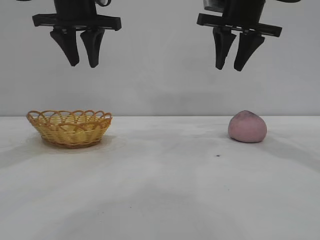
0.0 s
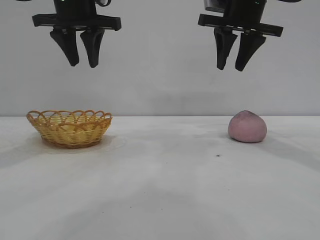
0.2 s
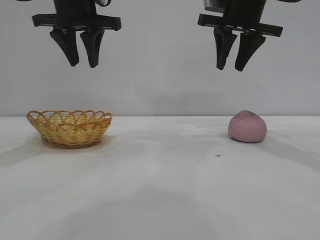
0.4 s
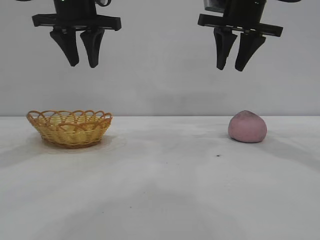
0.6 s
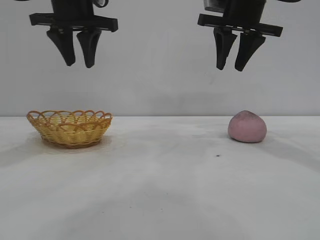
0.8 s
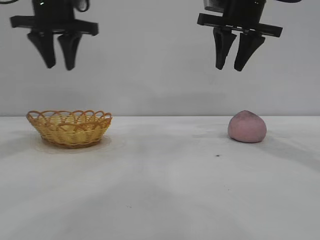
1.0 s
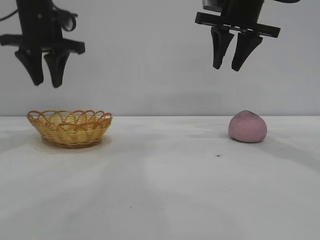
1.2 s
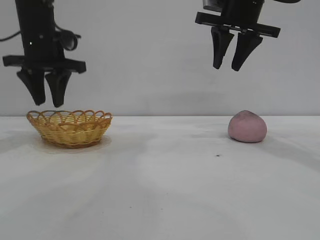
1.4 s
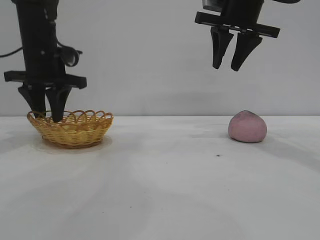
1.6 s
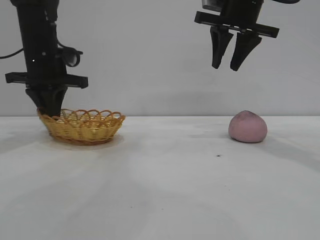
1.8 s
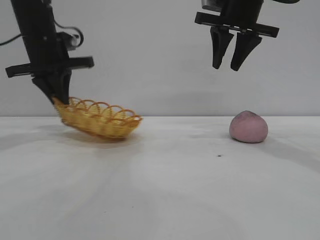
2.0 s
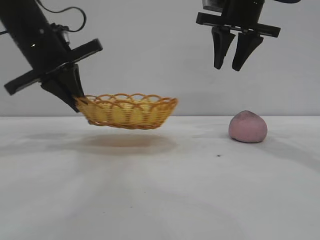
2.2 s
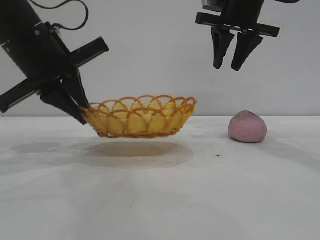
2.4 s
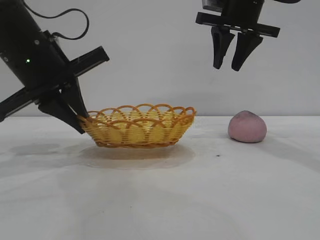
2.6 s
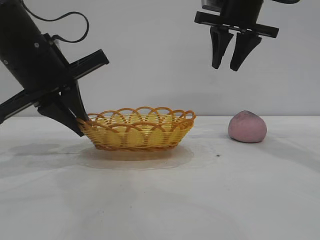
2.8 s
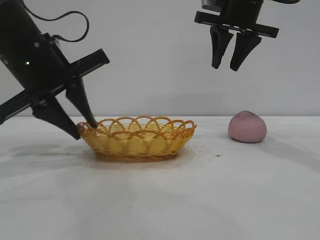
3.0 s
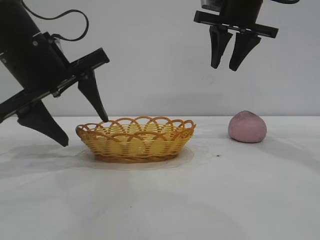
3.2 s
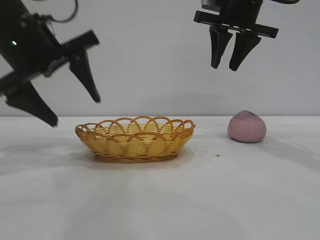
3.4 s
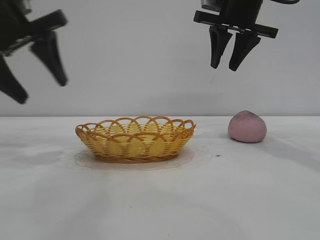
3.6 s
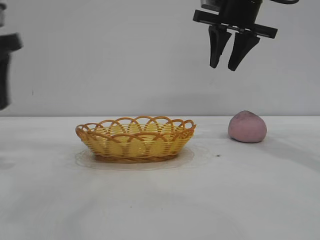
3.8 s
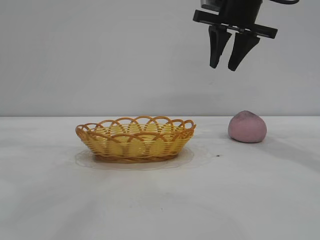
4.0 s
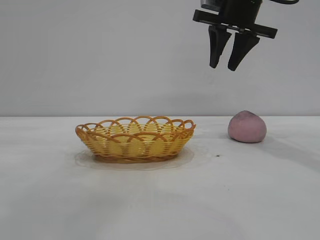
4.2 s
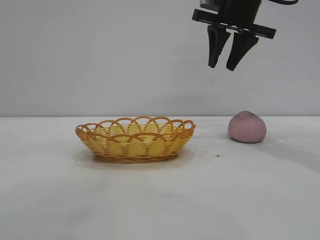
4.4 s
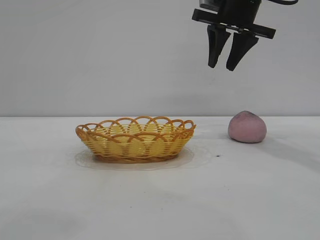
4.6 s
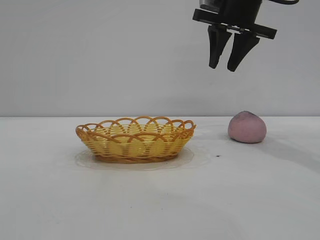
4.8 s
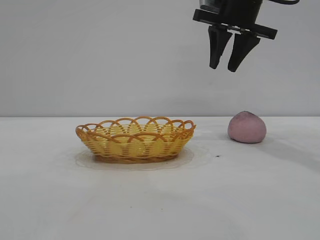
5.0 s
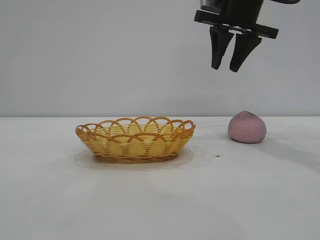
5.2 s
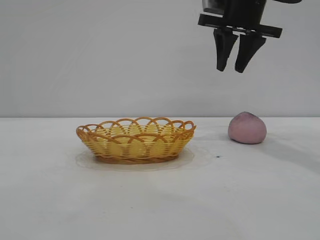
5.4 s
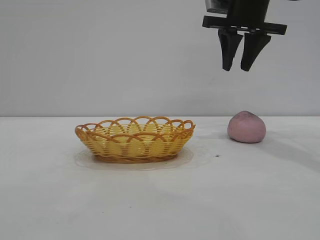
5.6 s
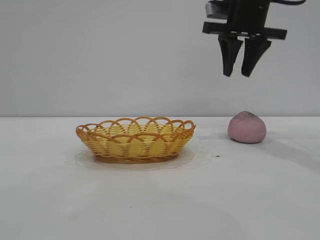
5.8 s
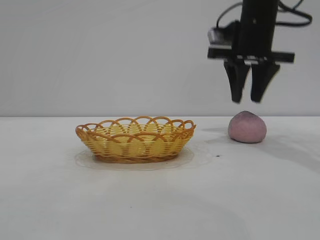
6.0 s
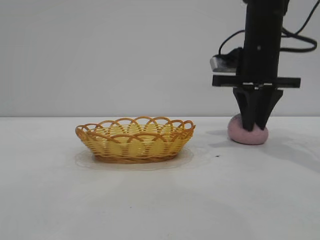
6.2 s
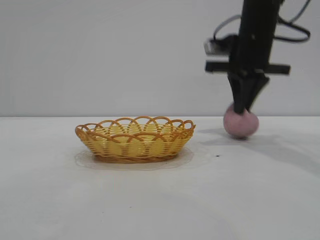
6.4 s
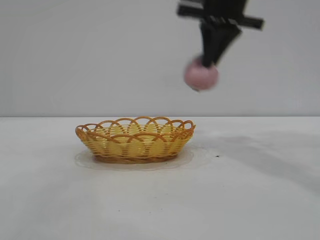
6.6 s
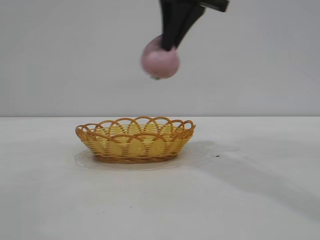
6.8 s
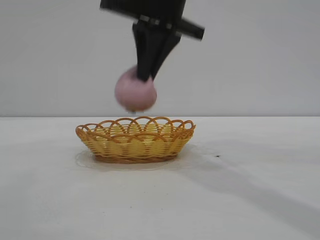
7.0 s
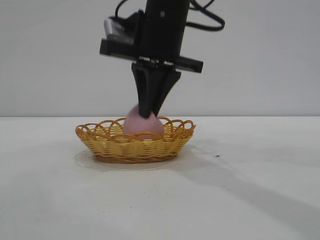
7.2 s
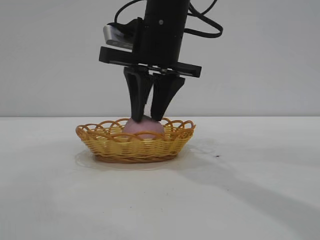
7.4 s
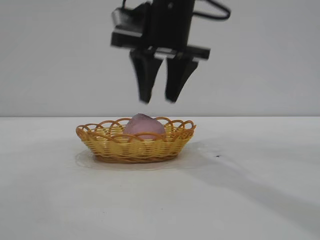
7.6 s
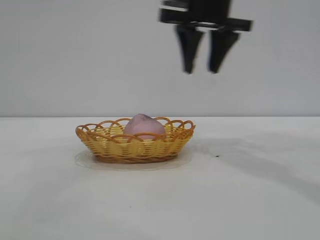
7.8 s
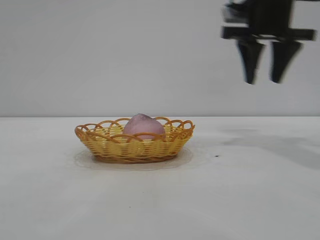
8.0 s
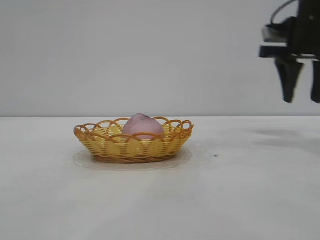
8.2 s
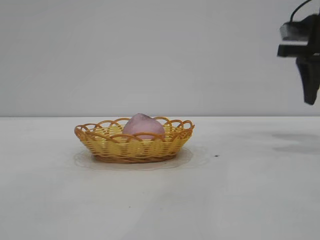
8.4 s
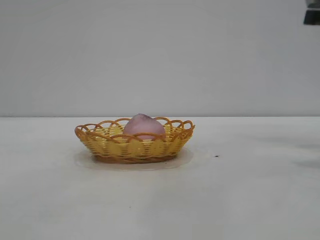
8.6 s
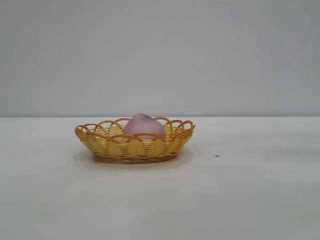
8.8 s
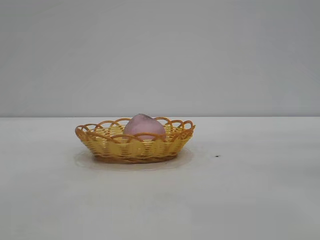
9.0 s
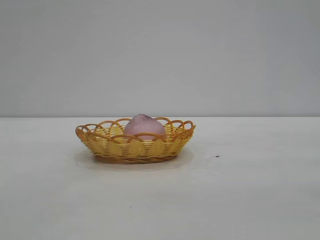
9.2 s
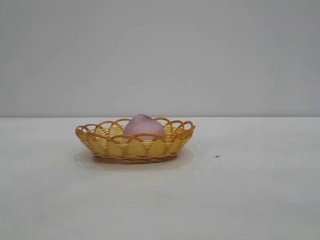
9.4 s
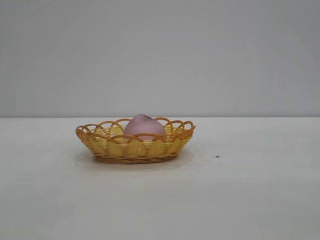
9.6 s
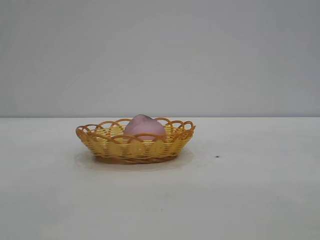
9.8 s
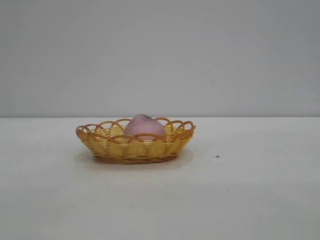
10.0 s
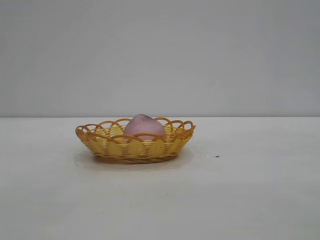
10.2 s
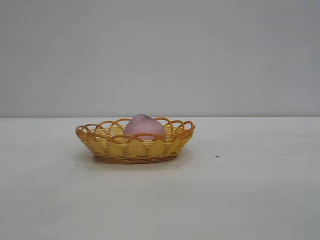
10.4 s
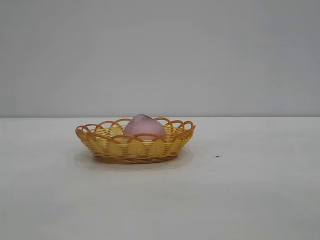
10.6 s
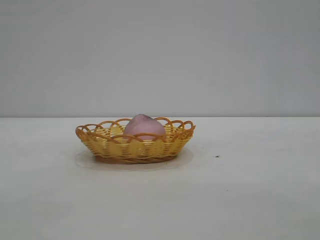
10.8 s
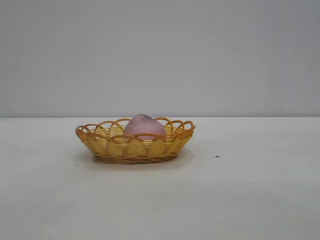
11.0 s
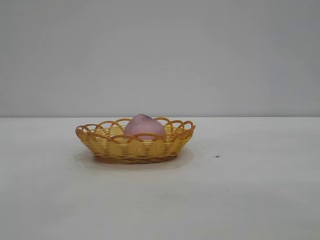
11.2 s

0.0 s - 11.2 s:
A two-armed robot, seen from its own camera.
Task of the whole recording: pick up the peach and put it into the basket.
Step, 0.0 s - 3.4 s: Move the basket to the center of view.
Step, 3.6 s - 6.4 s: Pick up the peach.
Step, 6.6 s - 7.6 s: place the peach into the basket.

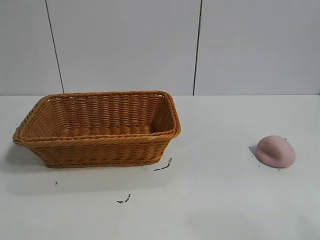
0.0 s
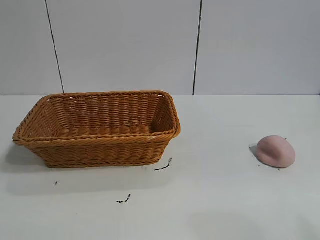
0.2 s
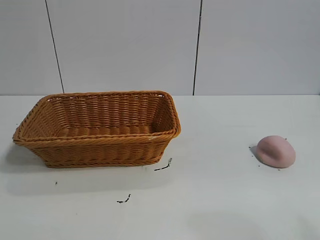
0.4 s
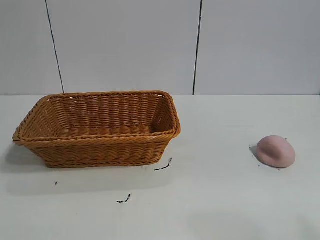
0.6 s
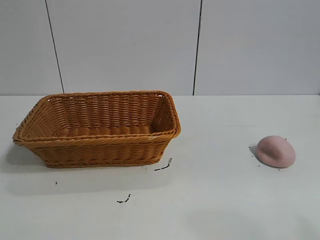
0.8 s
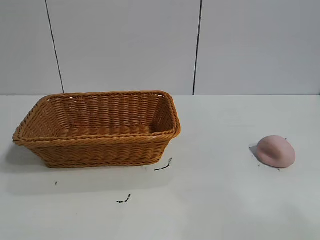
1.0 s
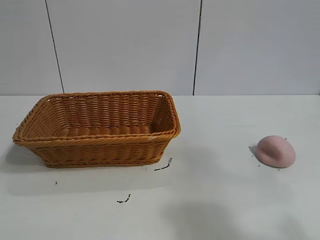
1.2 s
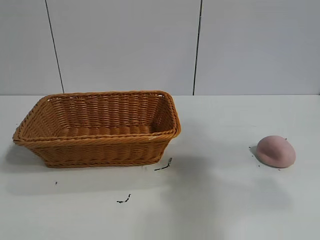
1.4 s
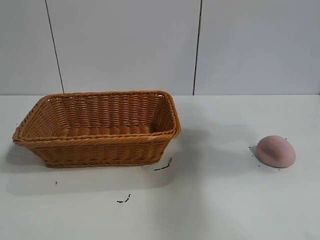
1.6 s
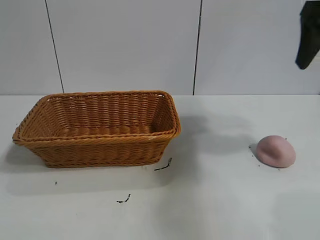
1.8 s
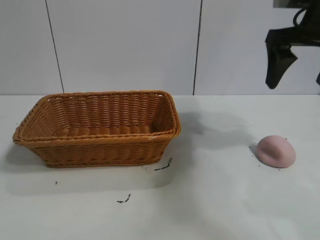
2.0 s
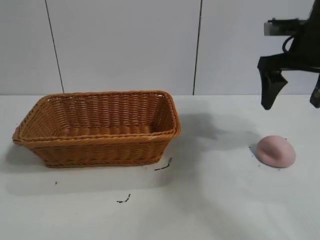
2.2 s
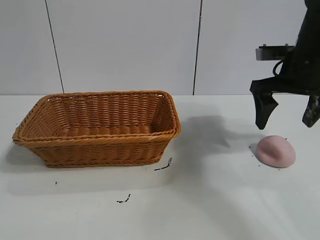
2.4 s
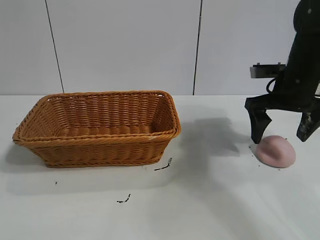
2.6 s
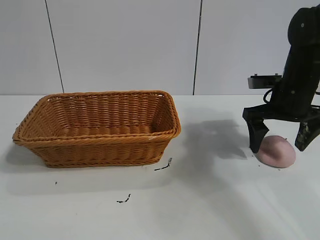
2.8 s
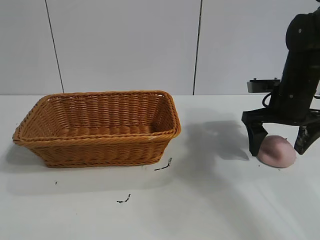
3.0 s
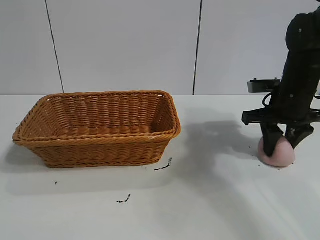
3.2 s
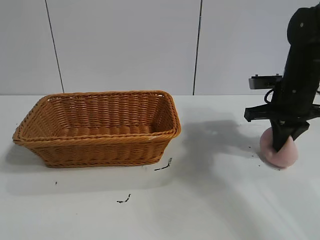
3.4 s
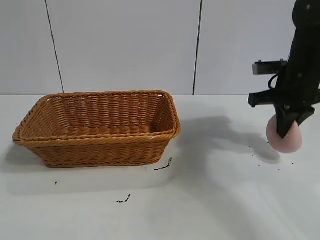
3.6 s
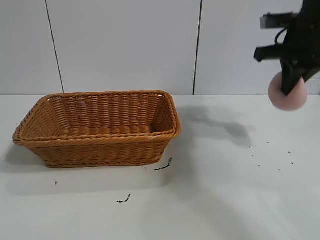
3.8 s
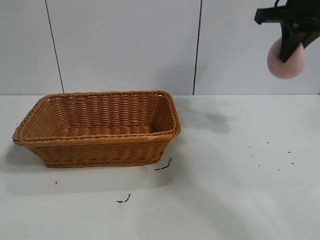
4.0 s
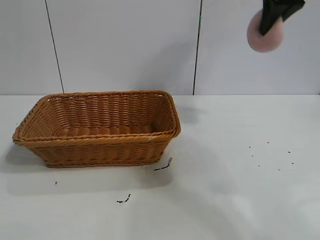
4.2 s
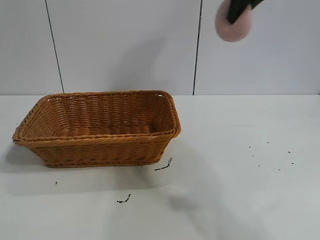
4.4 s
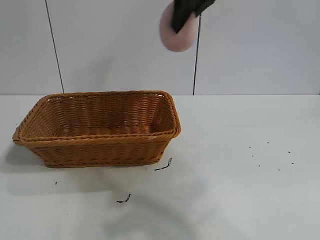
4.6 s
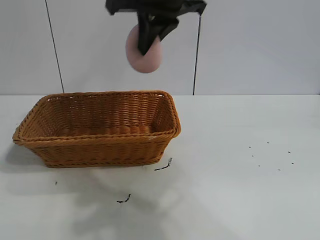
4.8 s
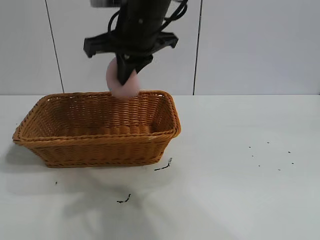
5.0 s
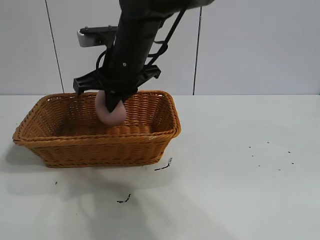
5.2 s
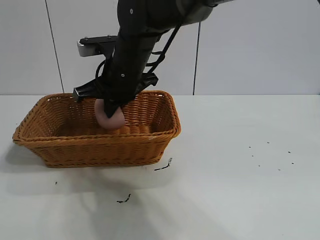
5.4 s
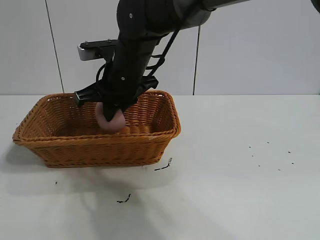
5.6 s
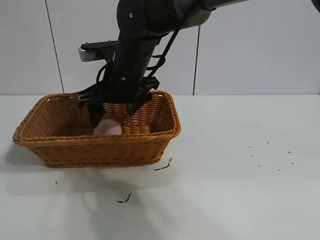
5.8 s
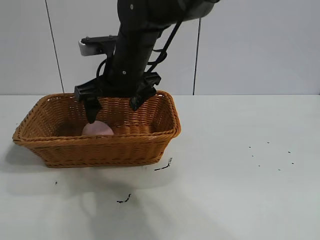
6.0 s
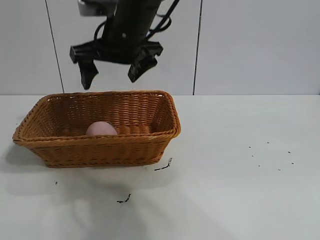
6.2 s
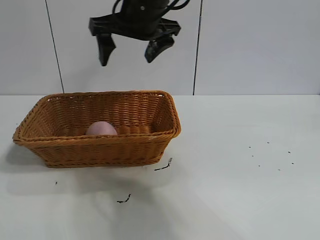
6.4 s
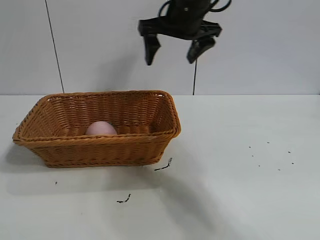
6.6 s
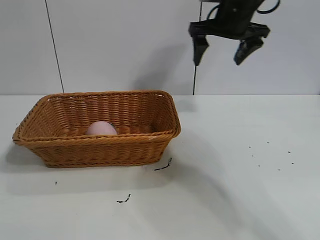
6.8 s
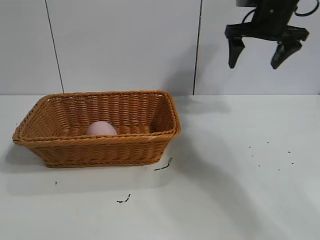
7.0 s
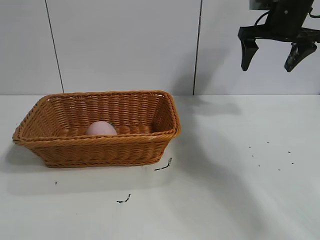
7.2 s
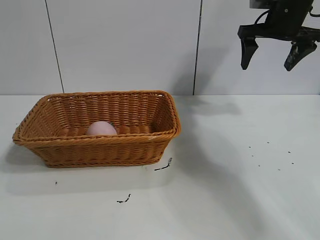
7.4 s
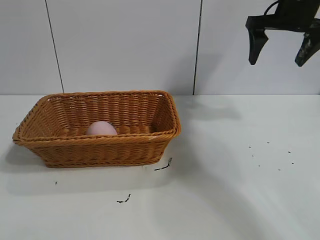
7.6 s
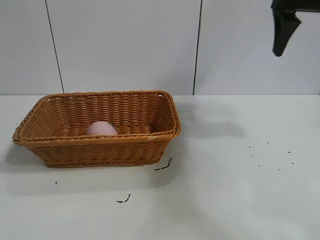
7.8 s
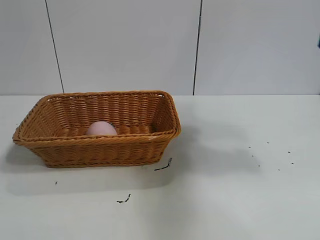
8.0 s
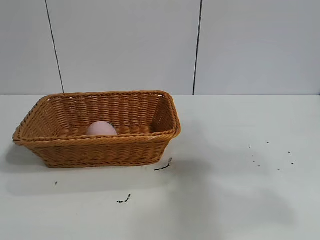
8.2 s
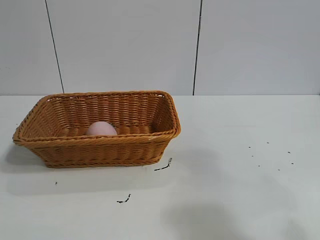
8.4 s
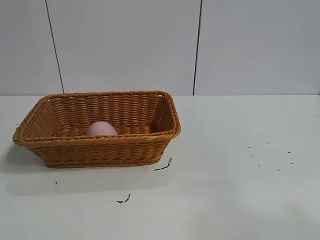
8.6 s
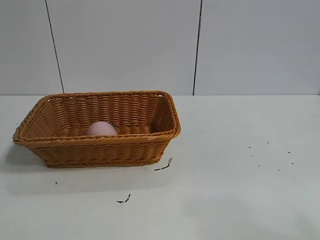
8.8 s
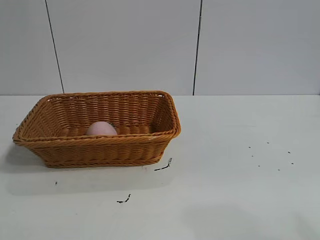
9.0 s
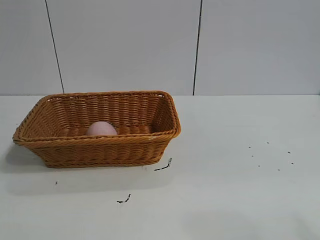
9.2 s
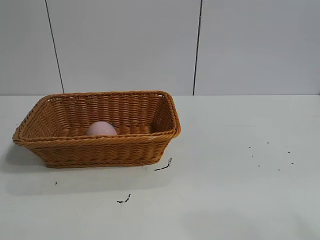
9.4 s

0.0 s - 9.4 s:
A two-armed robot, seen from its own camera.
Task of the whole recording: pick up the peach and put it into the basket.
Step, 0.8 s - 3.2 s: Grasp the peach with right gripper.
Step, 3.4 s - 5.8 s: Place the peach in the basket with right gripper.
